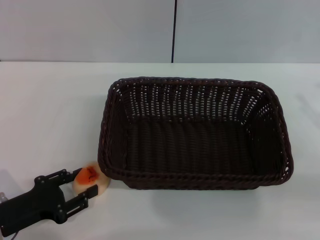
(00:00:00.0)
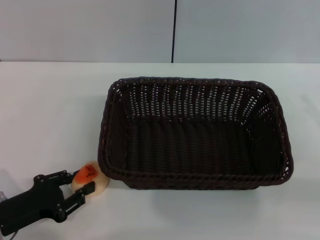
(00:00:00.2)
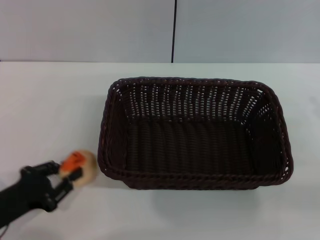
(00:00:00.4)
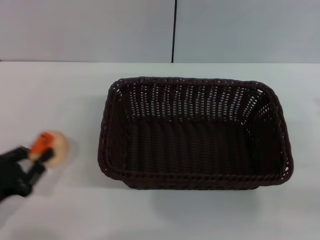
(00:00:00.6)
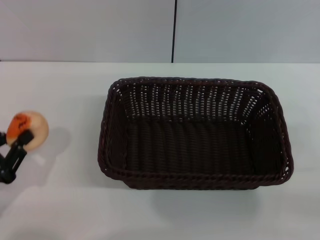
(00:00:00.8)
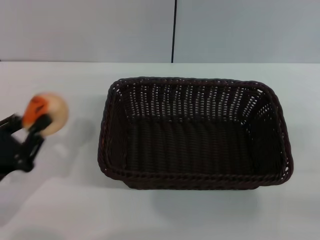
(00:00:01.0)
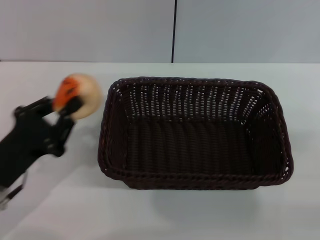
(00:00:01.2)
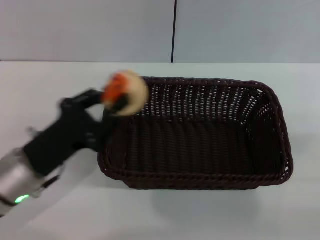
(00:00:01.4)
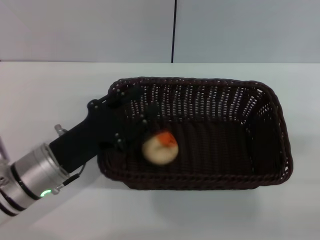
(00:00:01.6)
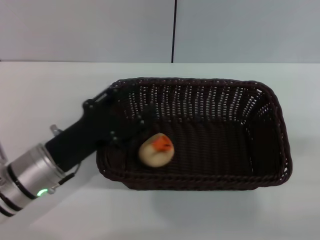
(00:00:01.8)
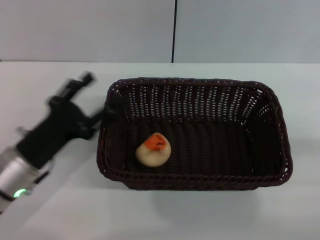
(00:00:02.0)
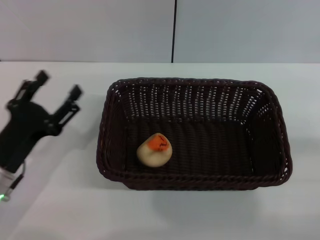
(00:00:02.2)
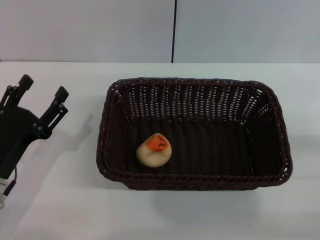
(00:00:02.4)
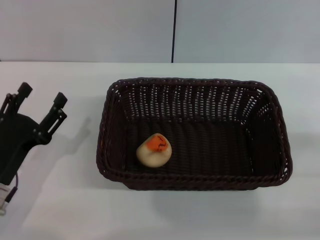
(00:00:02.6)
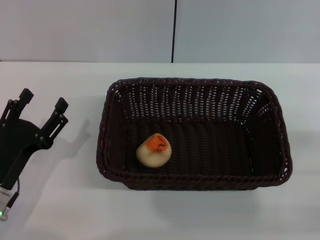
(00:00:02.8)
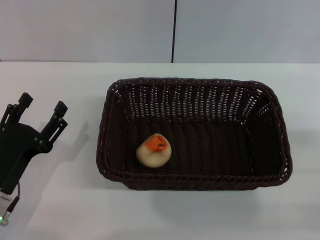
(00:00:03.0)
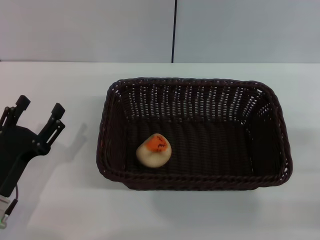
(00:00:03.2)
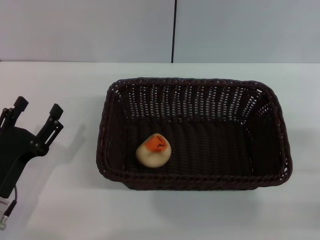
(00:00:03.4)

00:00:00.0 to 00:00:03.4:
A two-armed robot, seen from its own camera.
Step, 00:00:01.0 to 00:00:02.0: Place the egg yolk pastry into the basket with the left gripper.
00:00:00.0 to 00:00:01.6: The right gripper travels backward by about 5 cm; the left gripper heads to the right and forward, covering roughly 10 cm, and closes.
00:00:01.6 to 00:00:03.4: The left gripper goes some 10 cm to the left and backward, and opens.
